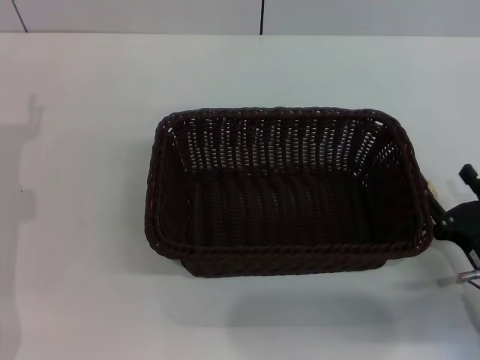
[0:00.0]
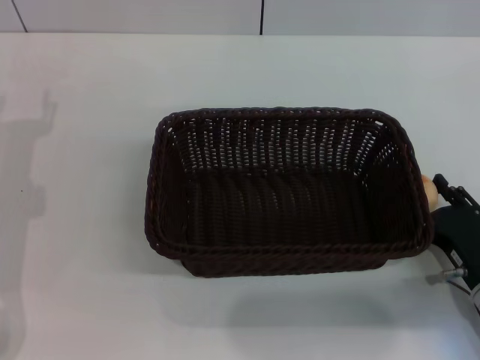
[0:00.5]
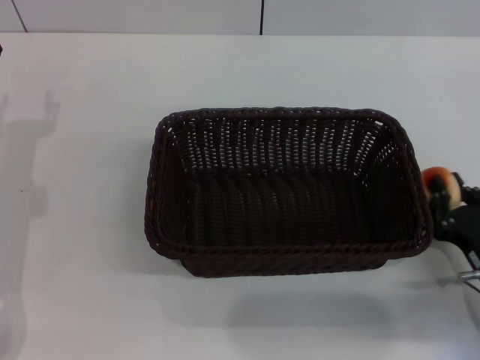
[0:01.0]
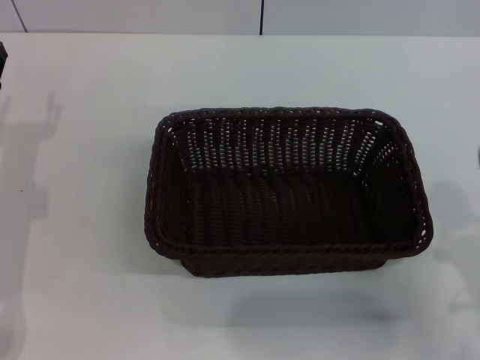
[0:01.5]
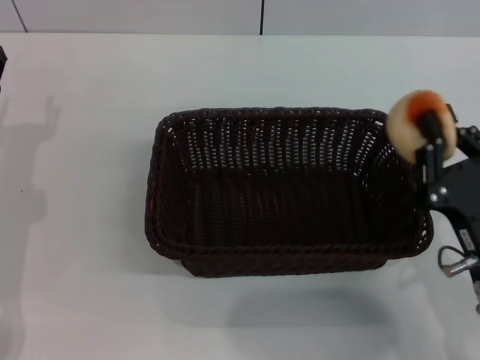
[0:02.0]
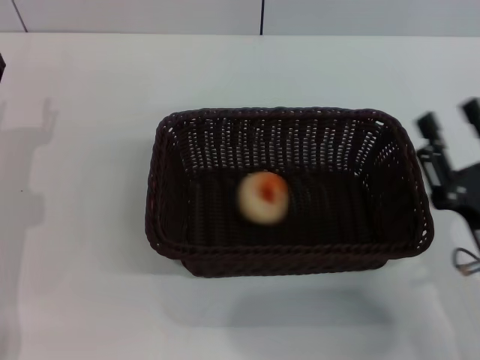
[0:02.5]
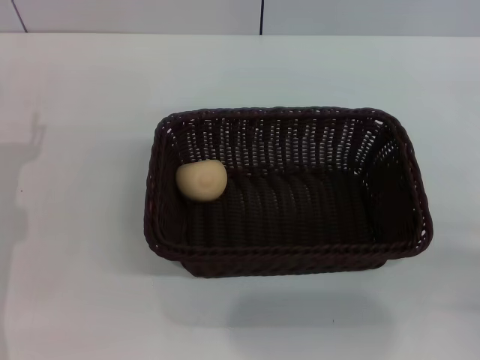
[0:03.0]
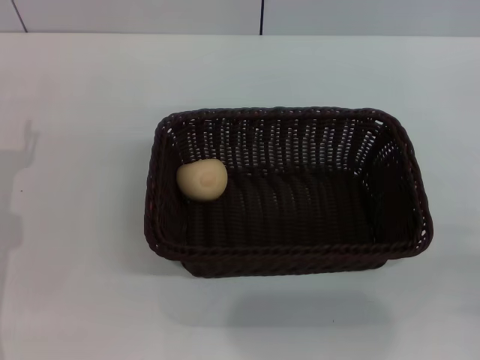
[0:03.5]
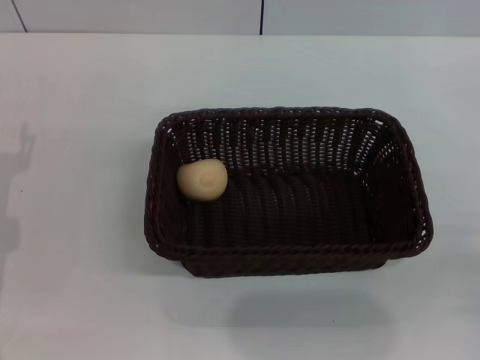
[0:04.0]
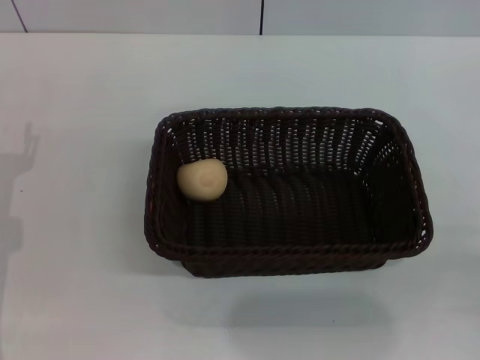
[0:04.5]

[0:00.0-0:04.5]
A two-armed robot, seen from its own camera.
Step, 0:00.5 to 0:01.0: Pick up the egg yolk pastry with the right gripper.
Step, 0:01.5 to 0:02.5: Place the egg yolk pastry into the basket with the right gripper.
0:00.0 to 0:02.0: The right gripper moves upward, about 5 cm, and closes its fingers.
0:02.0 to 0:04.5: The right gripper heads to the right, covering some 10 cm, and opens up.
